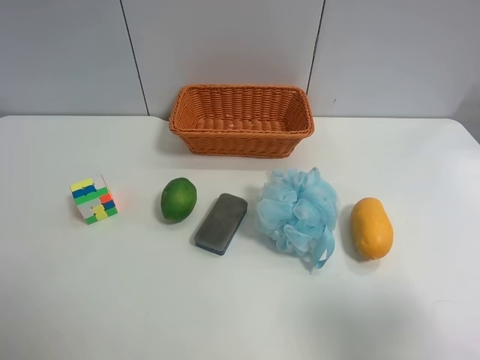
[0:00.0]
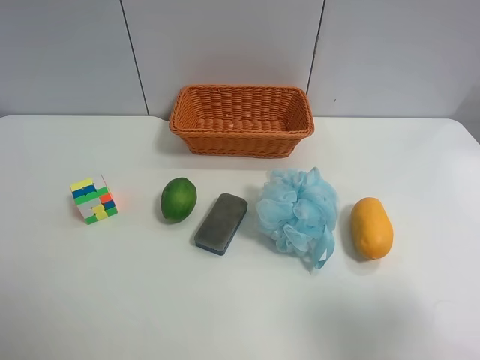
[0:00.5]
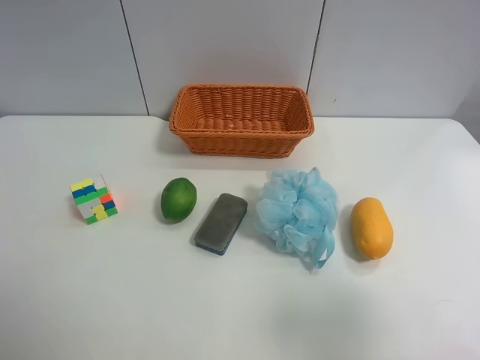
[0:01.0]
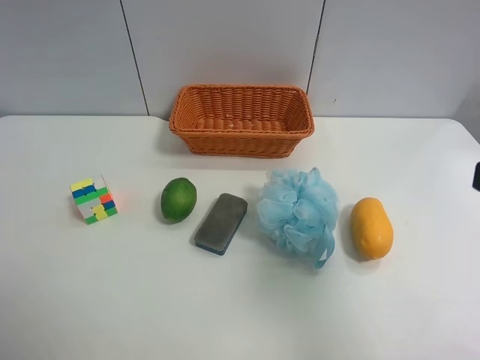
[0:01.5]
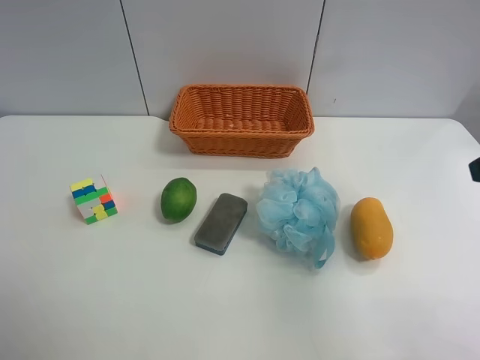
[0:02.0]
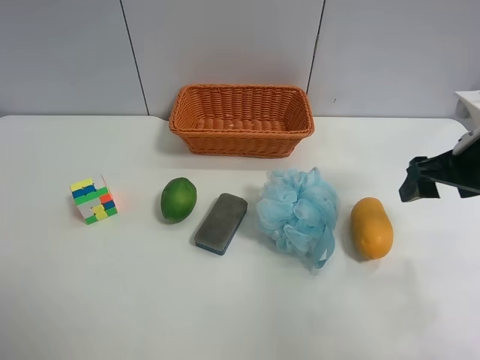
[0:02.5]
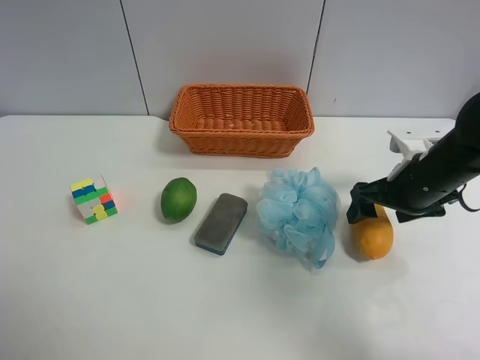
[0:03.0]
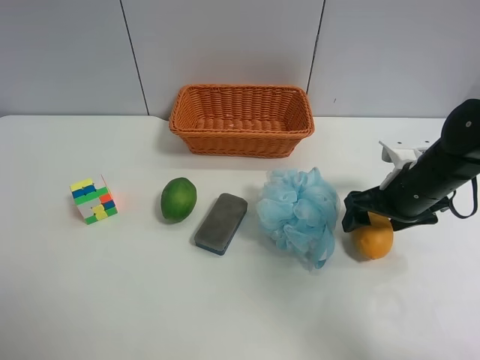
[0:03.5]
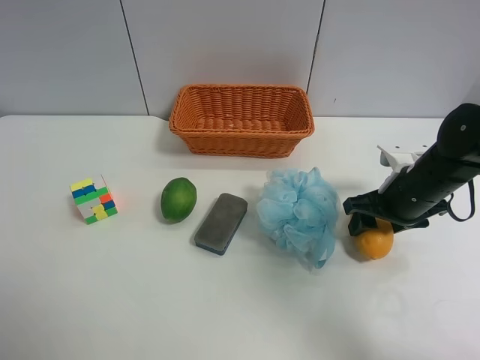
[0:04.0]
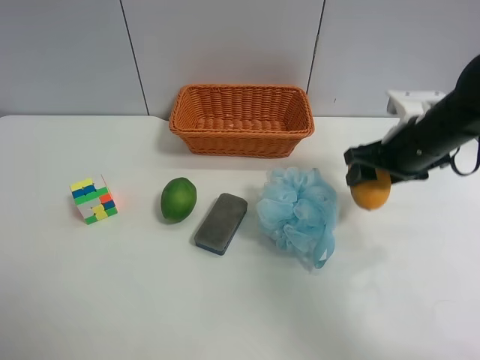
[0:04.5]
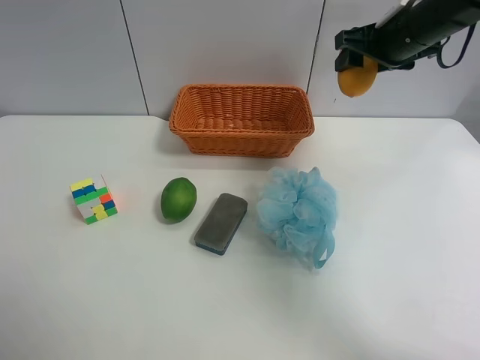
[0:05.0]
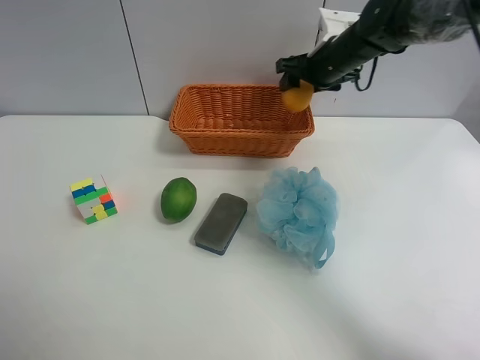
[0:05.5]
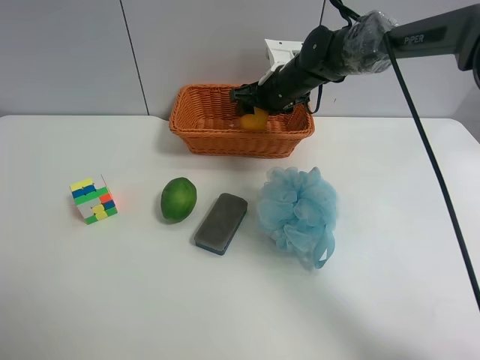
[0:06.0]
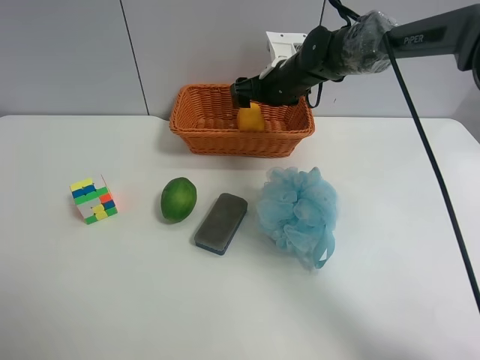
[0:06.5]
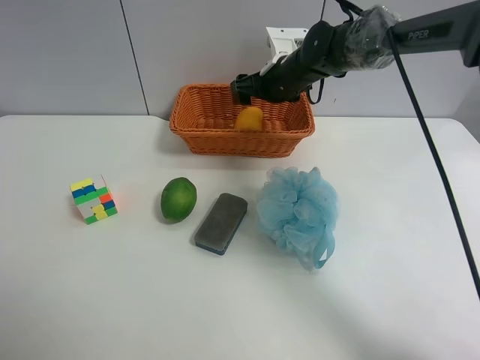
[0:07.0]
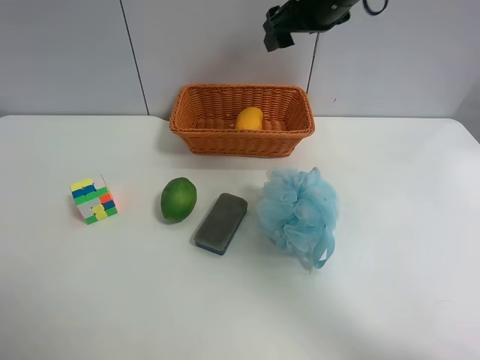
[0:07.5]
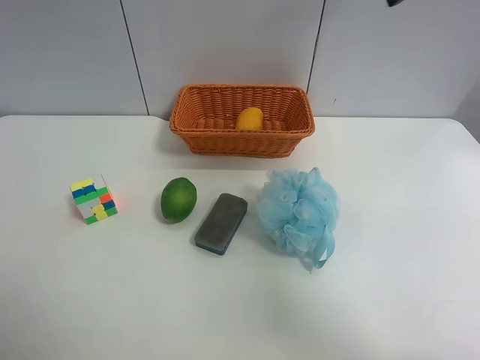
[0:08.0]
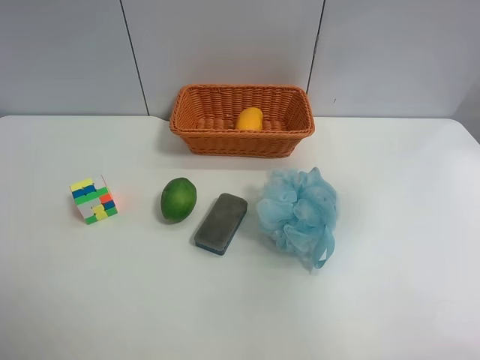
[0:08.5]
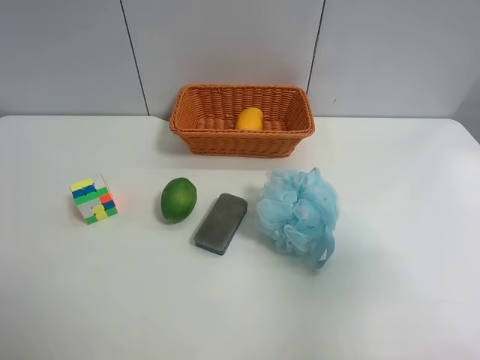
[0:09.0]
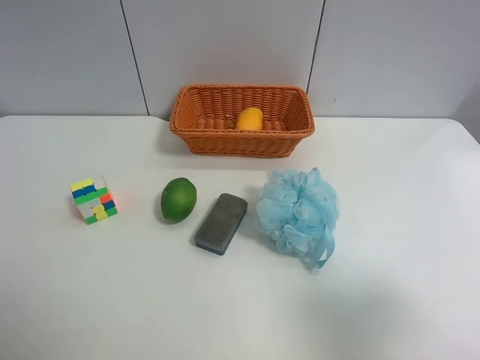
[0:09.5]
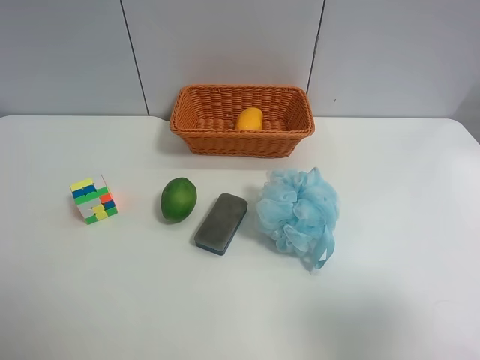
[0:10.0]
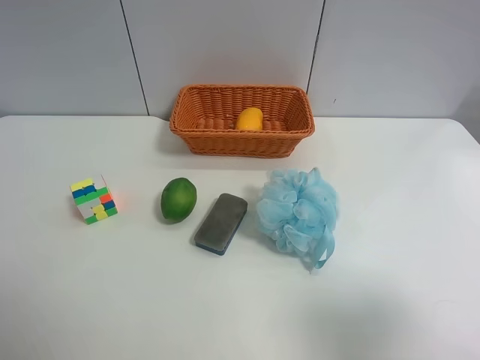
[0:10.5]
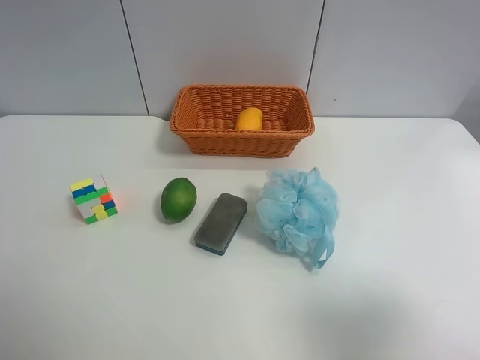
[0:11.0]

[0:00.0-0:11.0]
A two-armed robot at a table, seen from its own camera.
Task of the whole recording: Randomly grab green lemon or mangoes from the table and put them in a basket.
Step, 0:00.0 to 0:04.0: Grasp the mango with the right gripper.
Step, 0:04.5 to 0:07.0: Place the mango into the basket with the right gripper.
0:00.0 to 0:02.0: The right gripper heads forward, covering about 15 cm, and closes its fingers.
0:02.0 to 0:03.5: The right gripper is displaced downward and forward by some 20 cm.
0:03.5 to 0:05.5: The right gripper goes some 25 cm forward, to the left and upward, and closes its fingers.
0:05.5 to 0:07.5: The right gripper is displaced upward and backward by some 15 cm, and opens its fingers.
0:07.5 to 0:09.0: The right gripper travels backward and to the right by about 40 cm.
0:09.0 to 0:11.0: The right gripper shifts approximately 5 cm backward.
